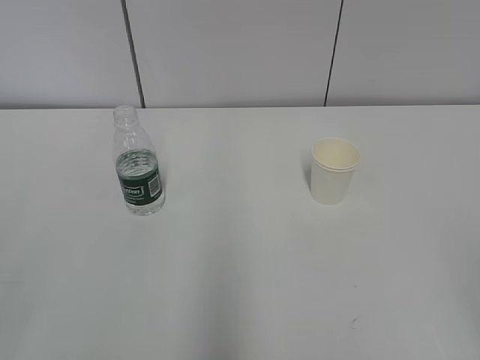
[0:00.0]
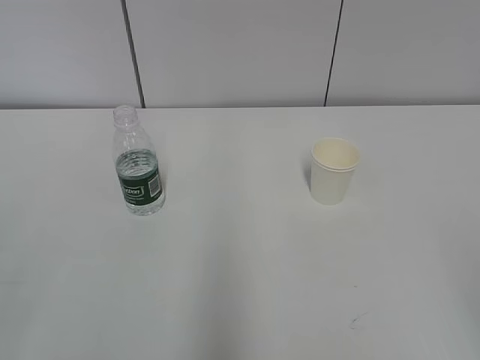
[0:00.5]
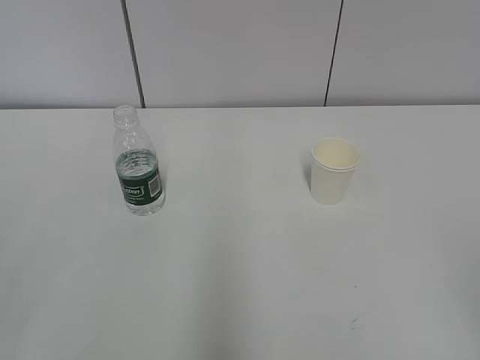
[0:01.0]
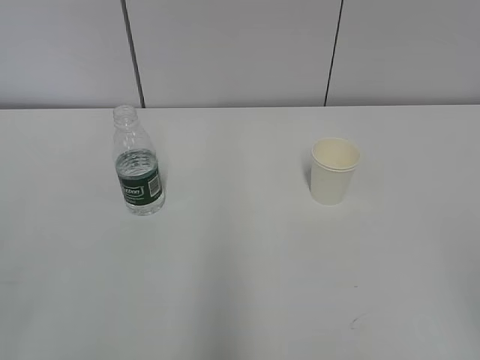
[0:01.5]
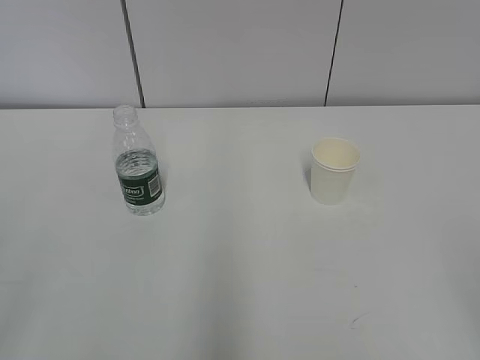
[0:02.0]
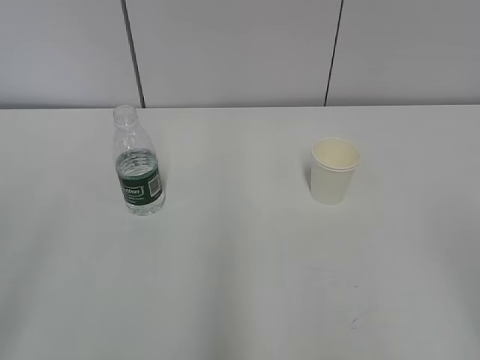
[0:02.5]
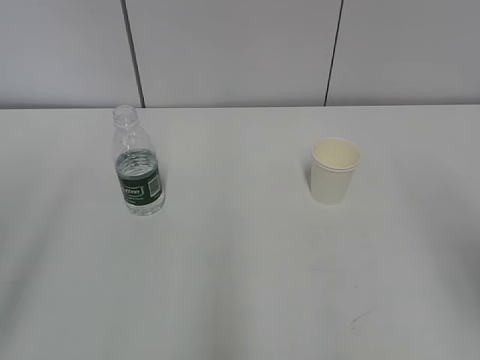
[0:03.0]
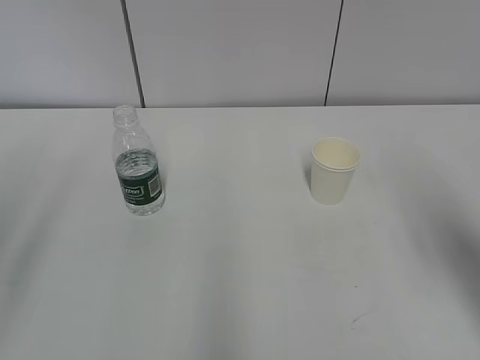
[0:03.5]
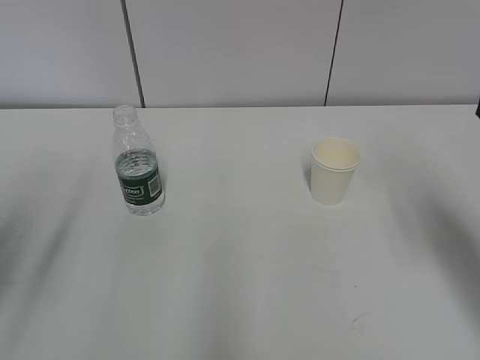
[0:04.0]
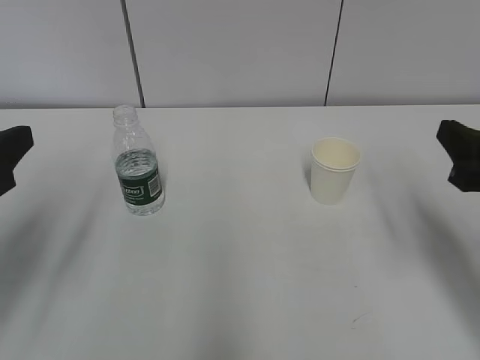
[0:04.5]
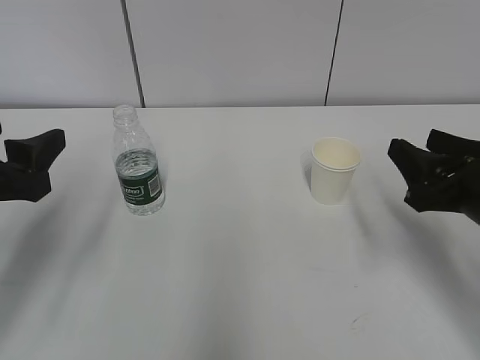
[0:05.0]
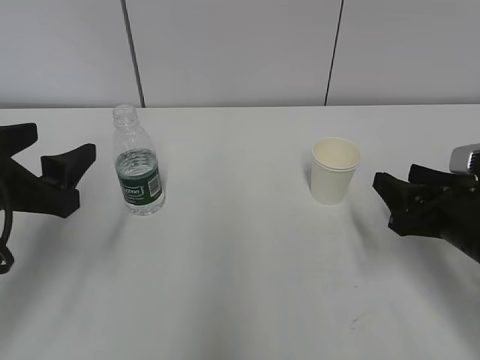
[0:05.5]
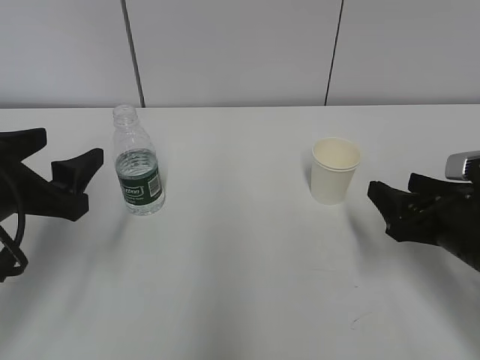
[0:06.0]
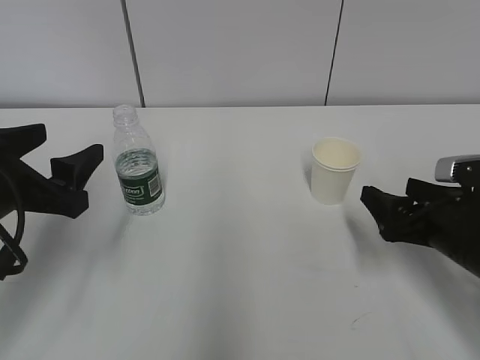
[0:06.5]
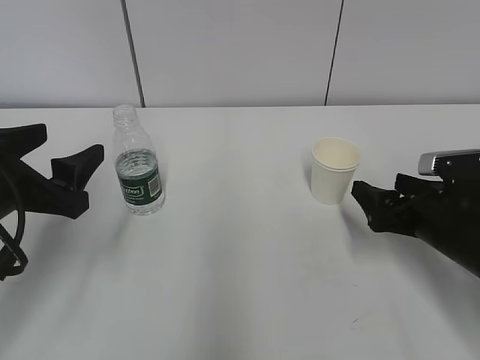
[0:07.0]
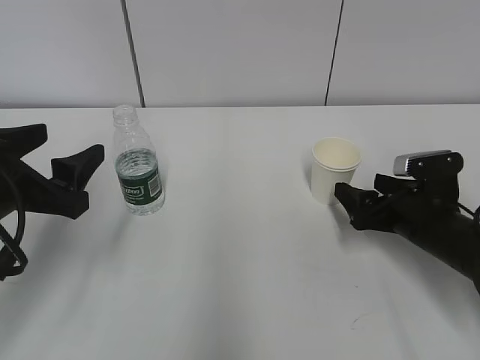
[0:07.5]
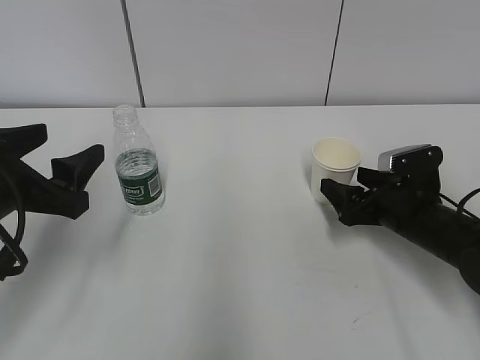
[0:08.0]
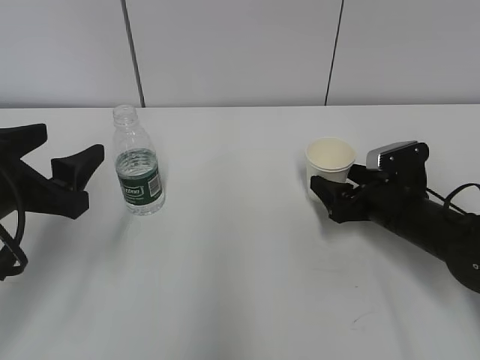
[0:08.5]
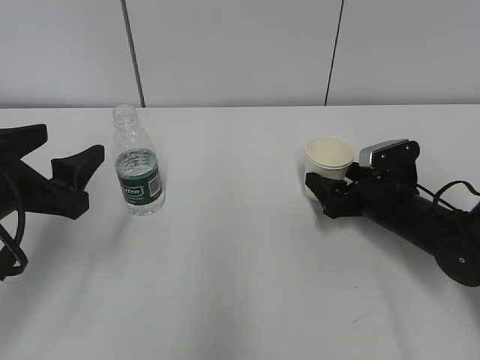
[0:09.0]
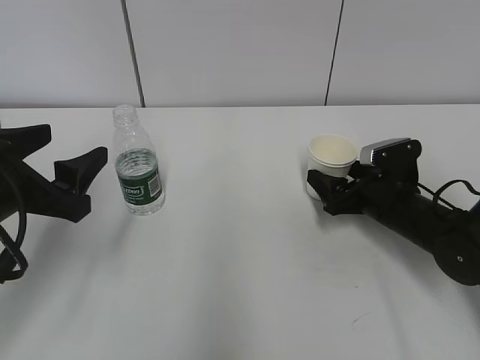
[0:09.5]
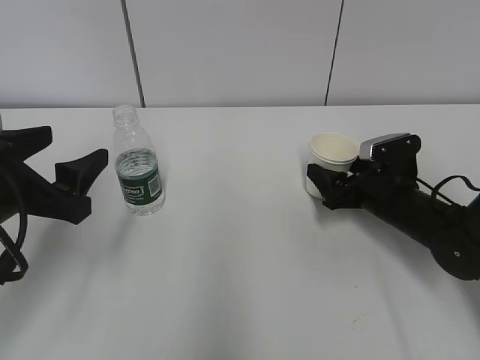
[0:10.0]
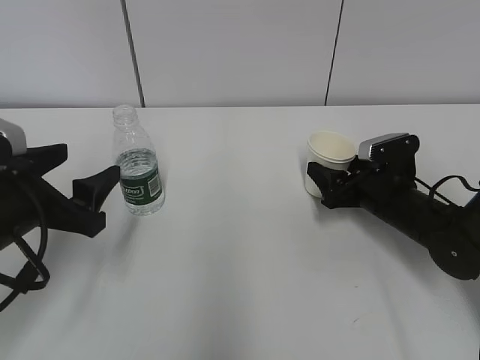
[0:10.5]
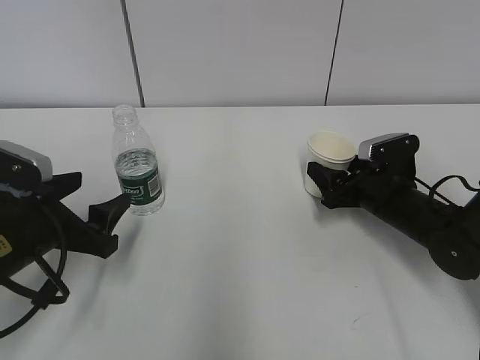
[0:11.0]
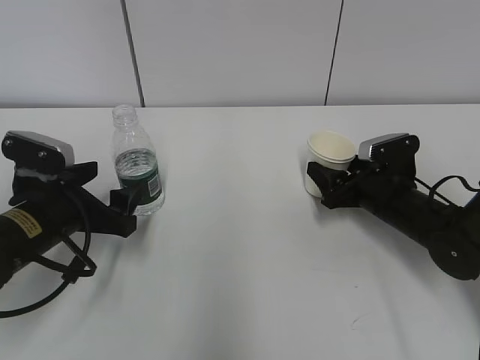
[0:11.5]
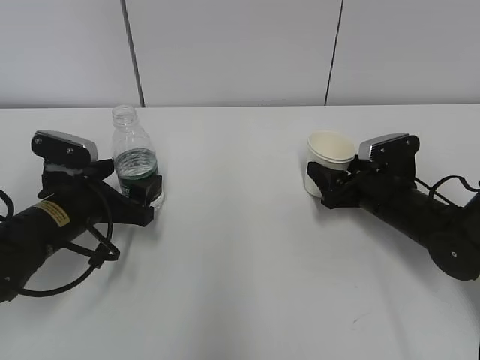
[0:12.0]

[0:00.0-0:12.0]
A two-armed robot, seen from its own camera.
Step, 0.0 to 11.5 s: Grab the water bottle with the left hand.
2.0 to 4.0 s: Both grippers travel together forward, roughly 20 cm.
4.0 to 6.0 s: The right gripper heads downward, covering approximately 15 cm; the left gripper moves downward, forward and to the right, approximately 15 cm.
6.0 to 8.0 s: The right gripper is displaced forward and downward by approximately 10 cm, and opens.
8.0 to 10.0 s: There are only small adjustments of the grippers.
10.0 to 12.0 s: The left gripper is displaced downward and forward by some 15 cm.

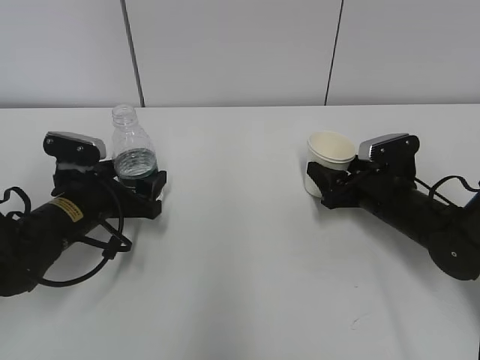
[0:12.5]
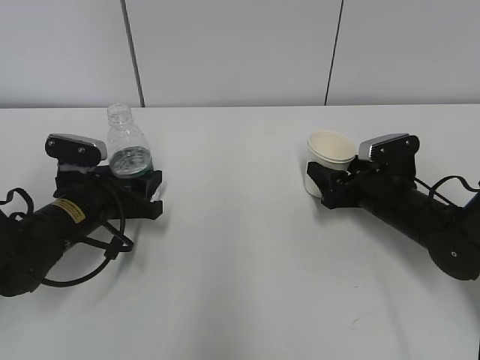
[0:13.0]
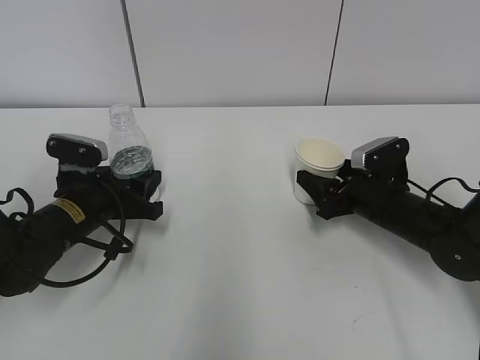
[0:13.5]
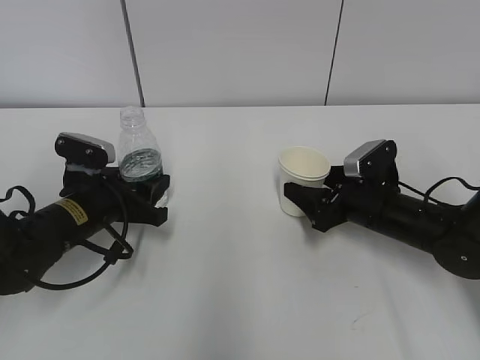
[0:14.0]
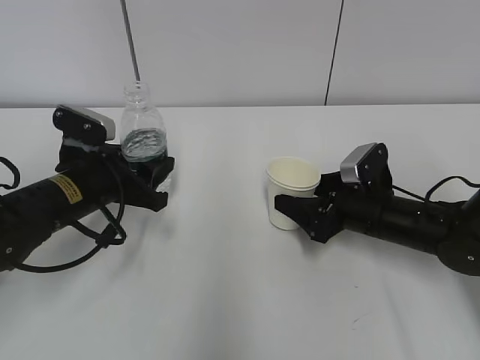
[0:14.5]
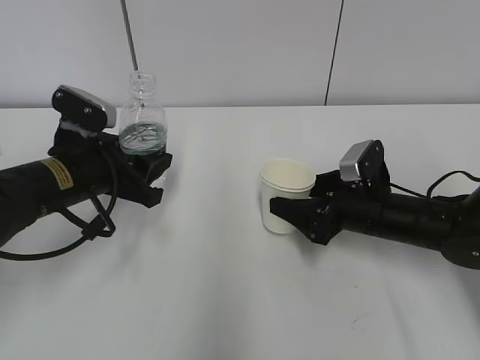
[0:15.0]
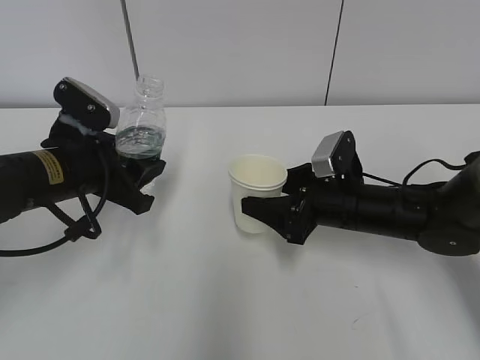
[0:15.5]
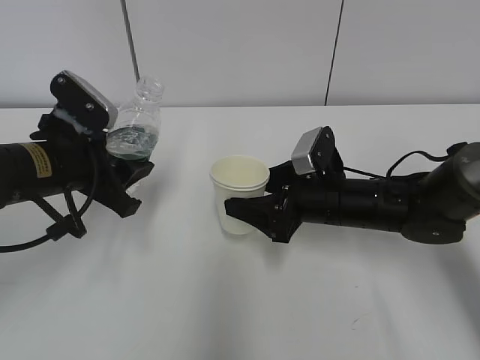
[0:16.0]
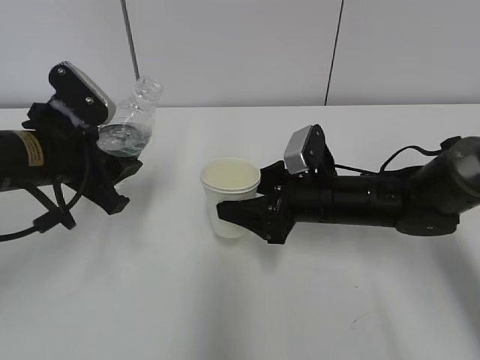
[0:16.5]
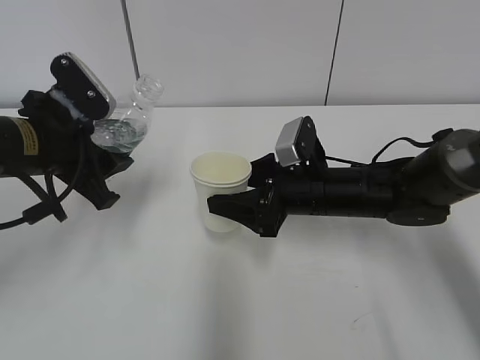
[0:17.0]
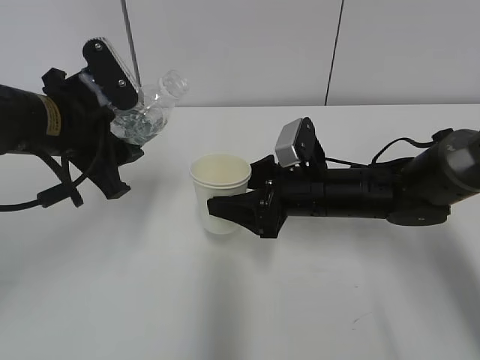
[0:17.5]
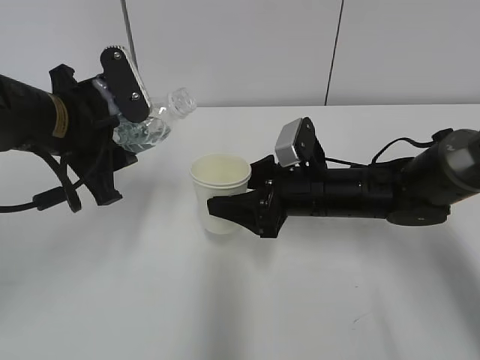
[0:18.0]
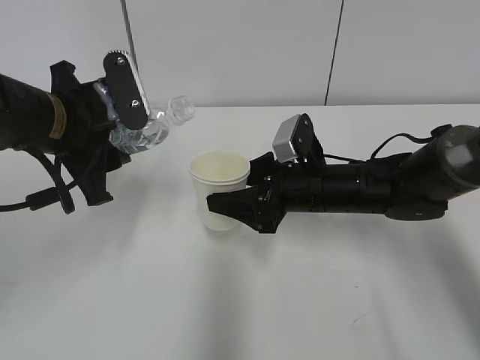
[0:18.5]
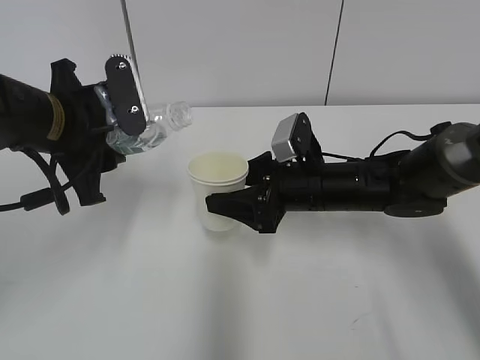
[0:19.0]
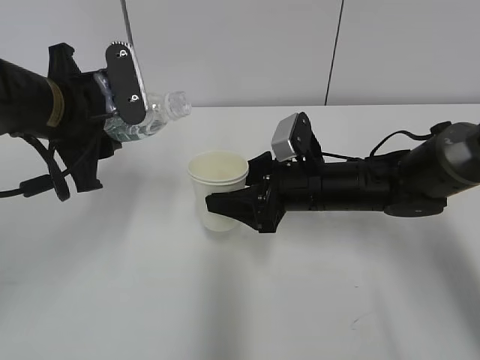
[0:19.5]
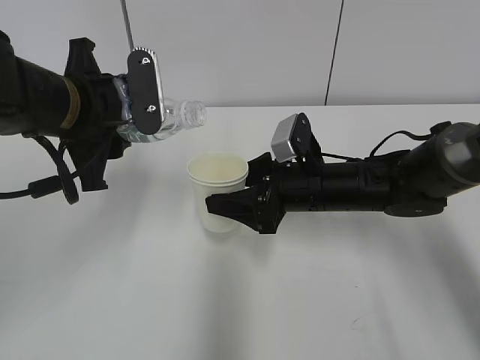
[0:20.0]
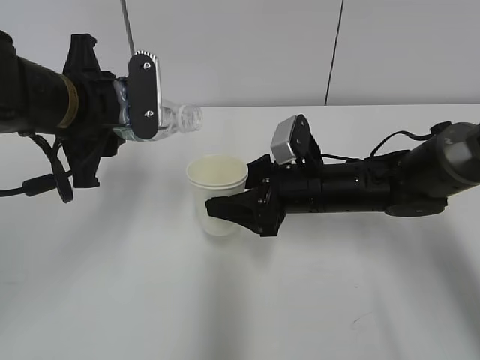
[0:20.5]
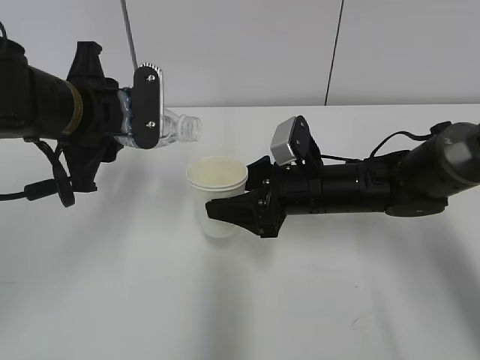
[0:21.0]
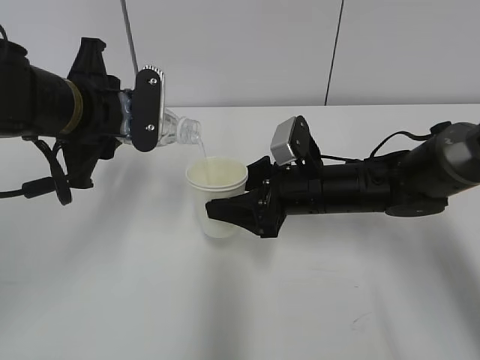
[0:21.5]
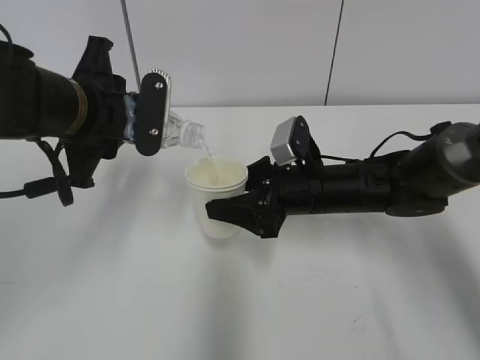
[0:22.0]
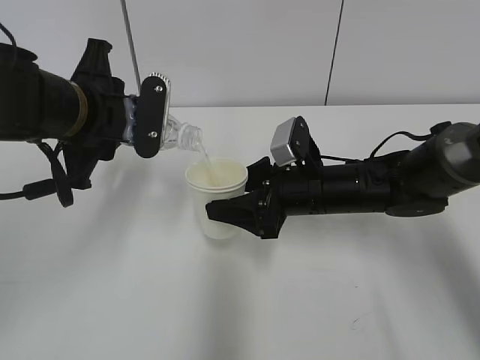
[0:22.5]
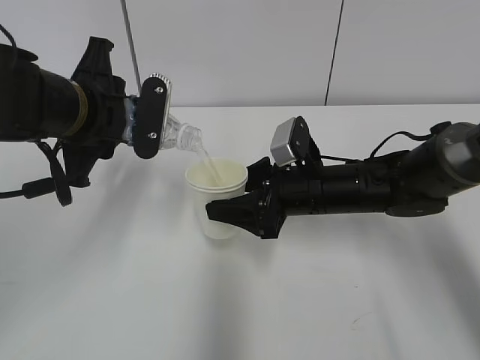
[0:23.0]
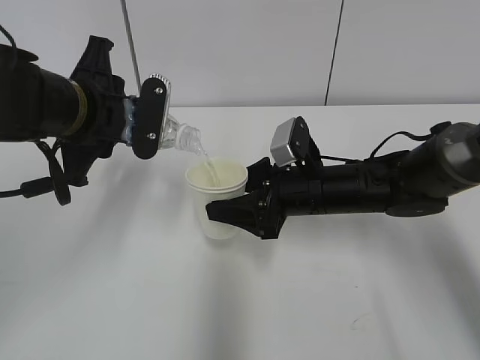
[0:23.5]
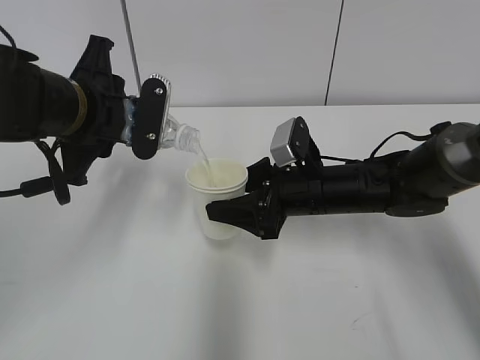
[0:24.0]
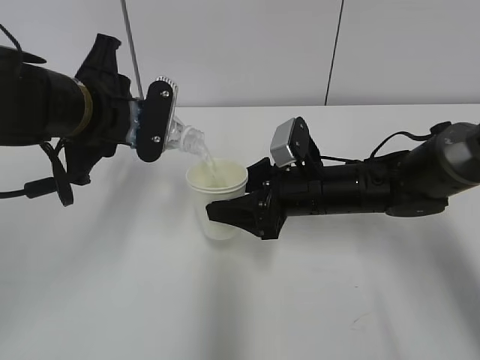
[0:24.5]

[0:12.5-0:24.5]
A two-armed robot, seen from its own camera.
Step, 12.5 to 17.5 s: Lift the paper cup with the right hand.
Step, 18.0 to 20.5 s: Fill water with the right hand.
Step, 18.0 to 20.5 s: Pour water with the left hand.
Step, 21.0 to 23.0 s: Collect water with the left hand.
12.5 to 14.5 s: The left gripper closes up.
14.5 to 16.5 s: The right gripper shifts some 5 cm to the left, while the left gripper heads upward, covering approximately 5 cm.
18.5 to 20.5 s: The grippers stay close to where they were, moving slightly.
20.5 to 24.5 s: The grippers make only small movements.

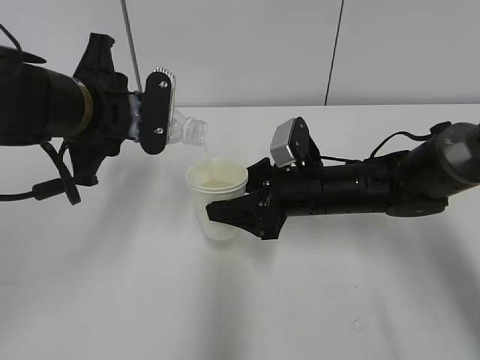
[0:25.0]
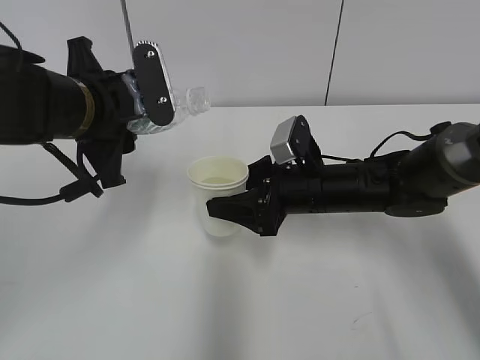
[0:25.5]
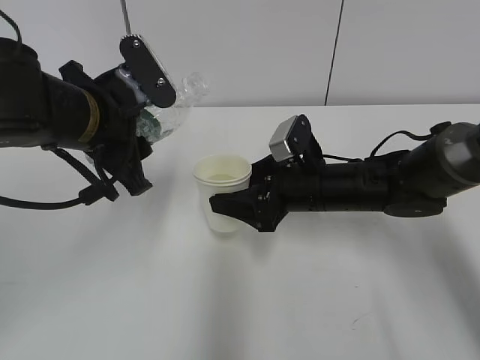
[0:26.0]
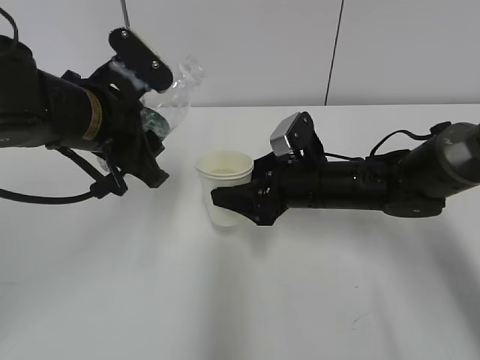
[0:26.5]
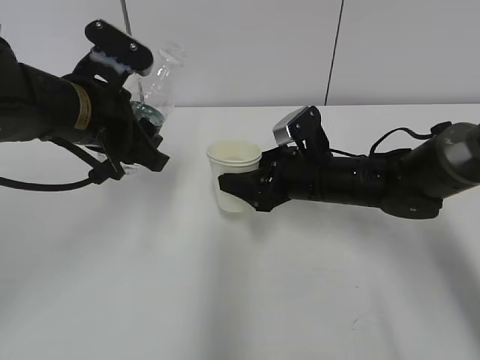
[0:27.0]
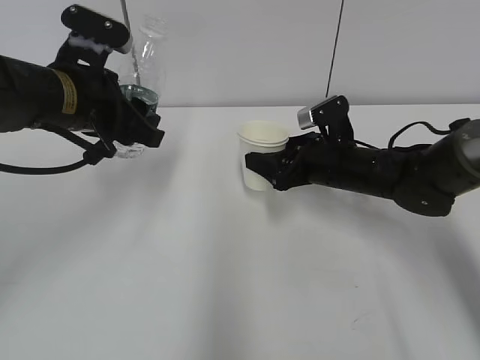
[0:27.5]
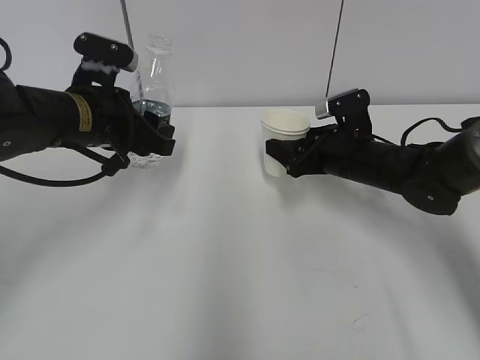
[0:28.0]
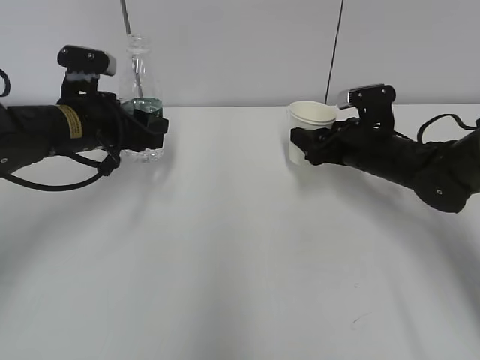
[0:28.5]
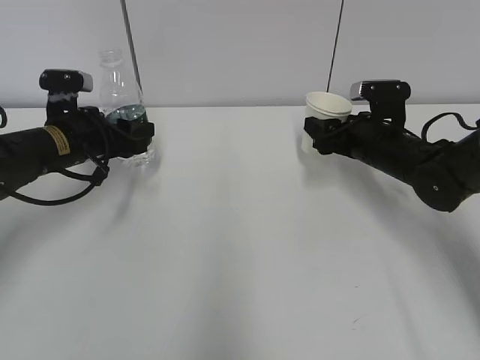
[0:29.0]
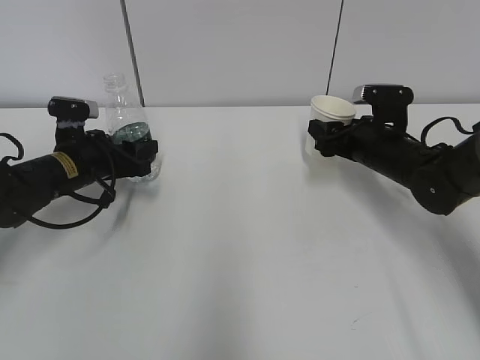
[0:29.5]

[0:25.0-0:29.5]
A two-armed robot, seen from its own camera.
Step, 25.0 to 29.0 s: Place the paper cup with the right hand.
27.0 to 29.5 s: The right gripper travels to the right by about 10 cm. Meanwhile the left gripper travels downward, forward and to the left by roughly 15 cm.
